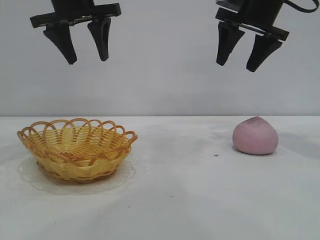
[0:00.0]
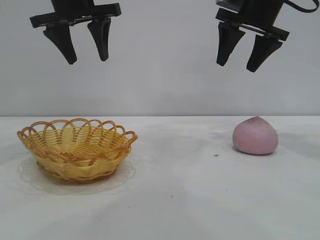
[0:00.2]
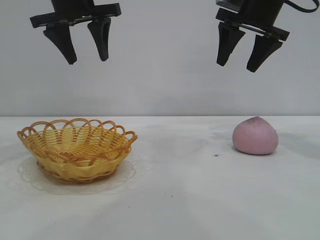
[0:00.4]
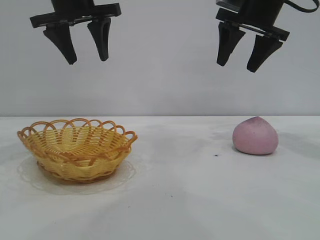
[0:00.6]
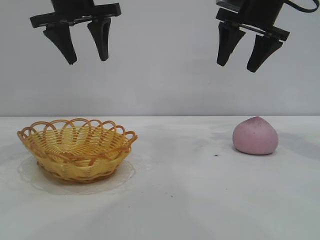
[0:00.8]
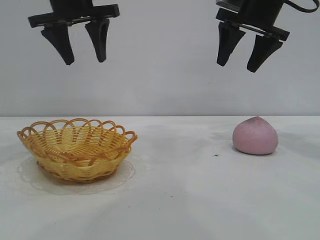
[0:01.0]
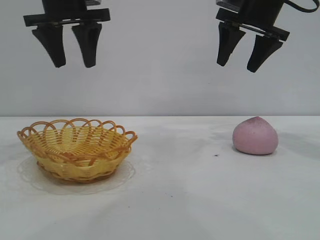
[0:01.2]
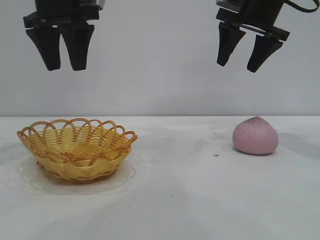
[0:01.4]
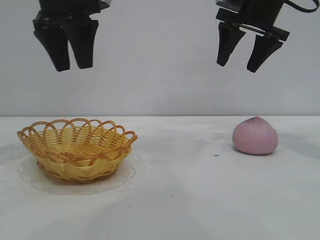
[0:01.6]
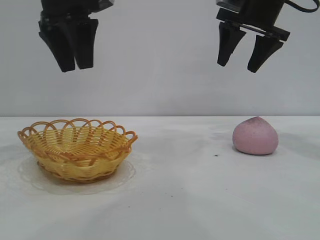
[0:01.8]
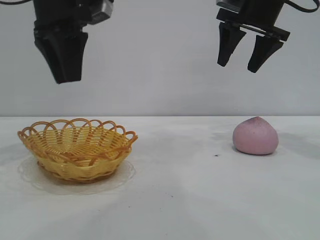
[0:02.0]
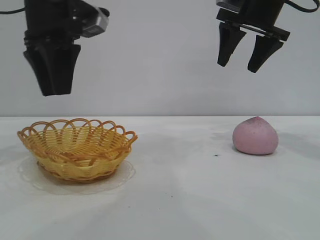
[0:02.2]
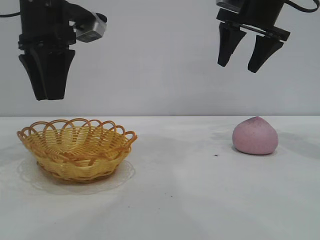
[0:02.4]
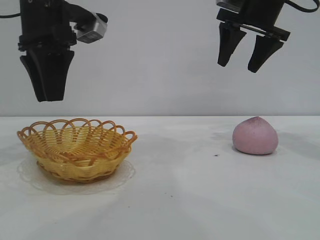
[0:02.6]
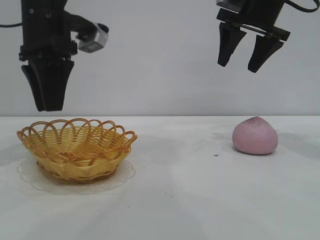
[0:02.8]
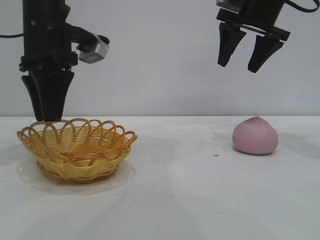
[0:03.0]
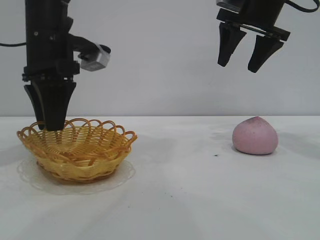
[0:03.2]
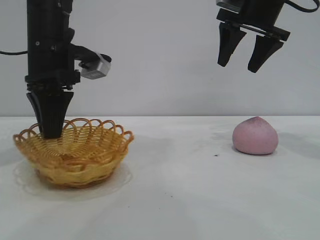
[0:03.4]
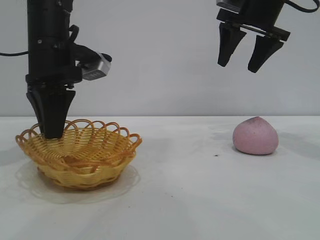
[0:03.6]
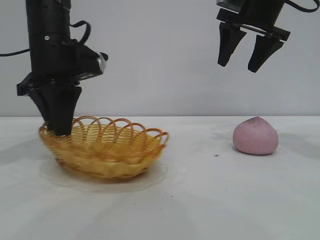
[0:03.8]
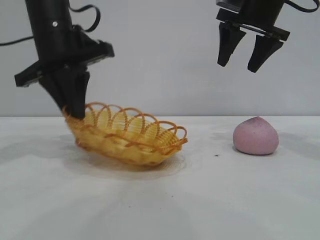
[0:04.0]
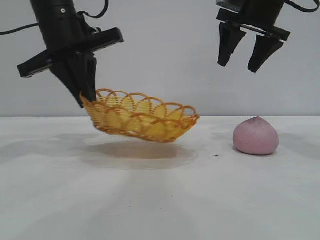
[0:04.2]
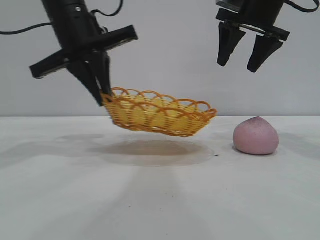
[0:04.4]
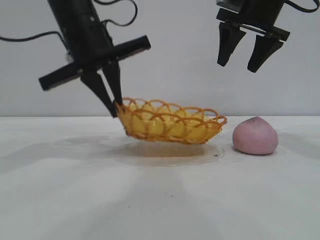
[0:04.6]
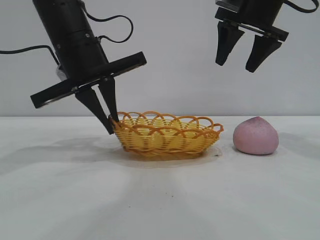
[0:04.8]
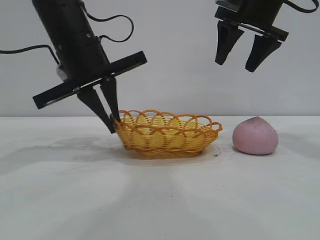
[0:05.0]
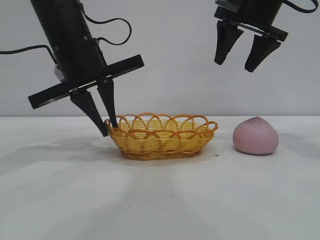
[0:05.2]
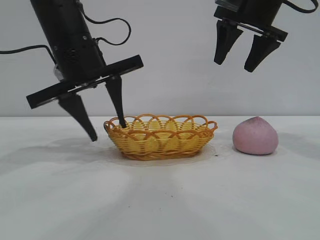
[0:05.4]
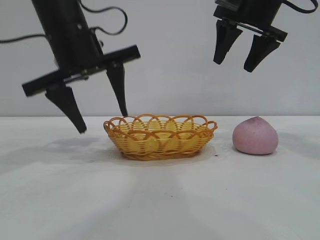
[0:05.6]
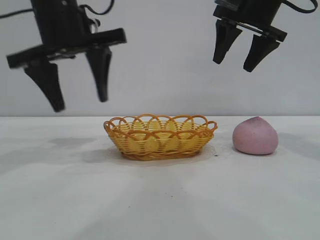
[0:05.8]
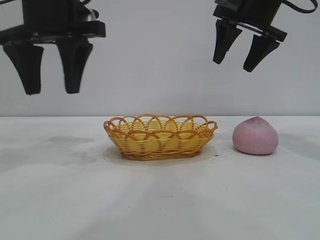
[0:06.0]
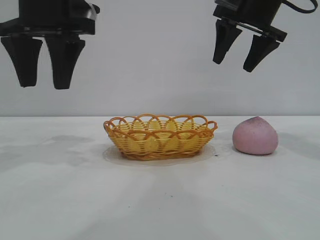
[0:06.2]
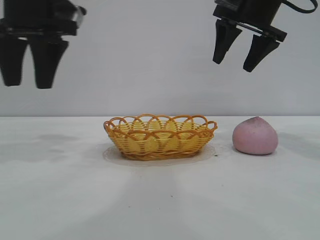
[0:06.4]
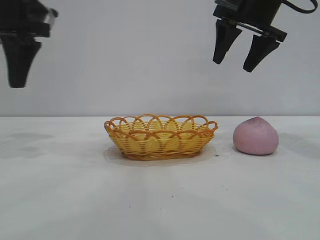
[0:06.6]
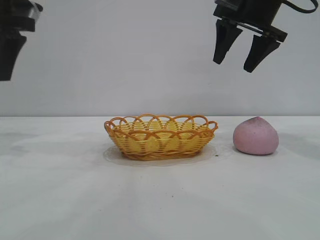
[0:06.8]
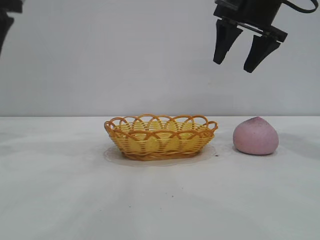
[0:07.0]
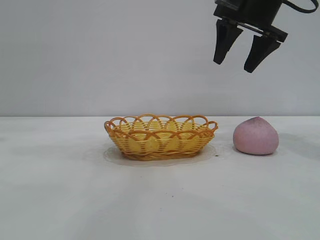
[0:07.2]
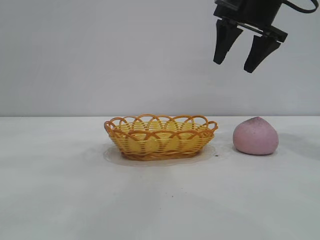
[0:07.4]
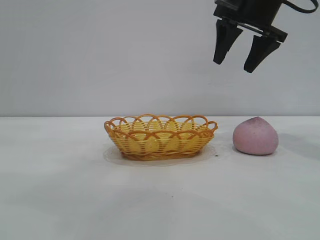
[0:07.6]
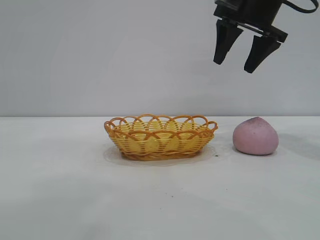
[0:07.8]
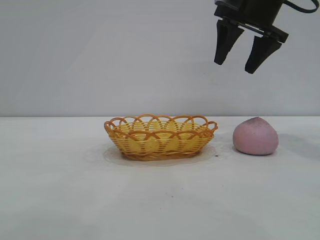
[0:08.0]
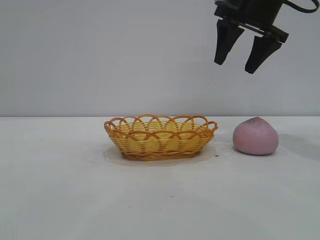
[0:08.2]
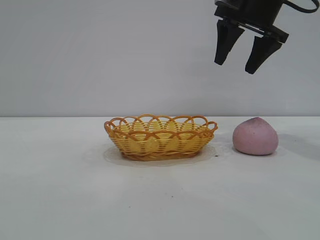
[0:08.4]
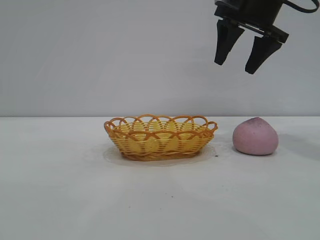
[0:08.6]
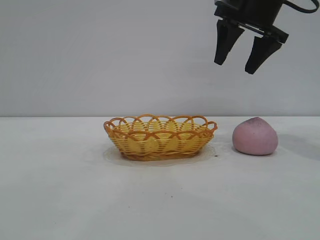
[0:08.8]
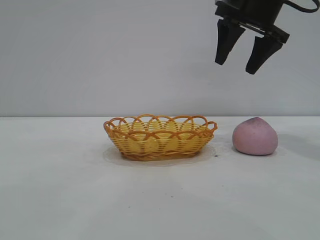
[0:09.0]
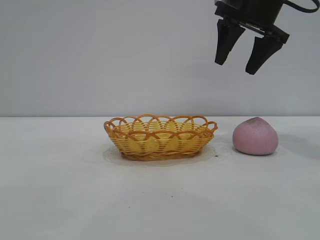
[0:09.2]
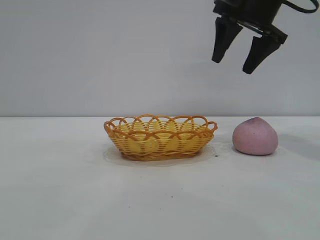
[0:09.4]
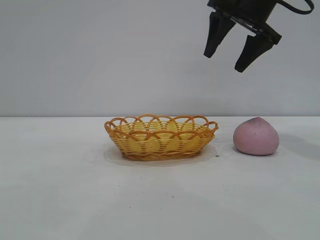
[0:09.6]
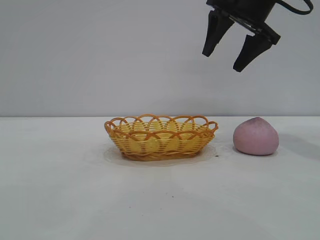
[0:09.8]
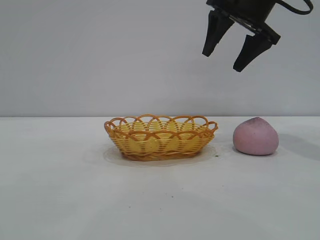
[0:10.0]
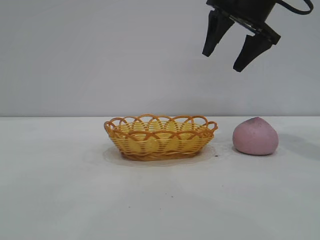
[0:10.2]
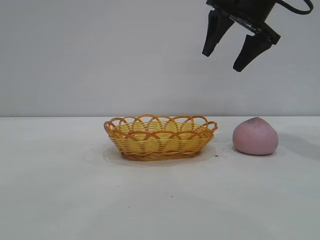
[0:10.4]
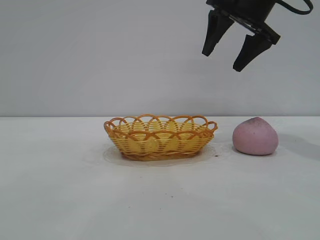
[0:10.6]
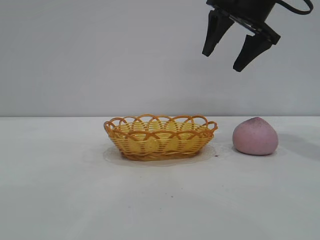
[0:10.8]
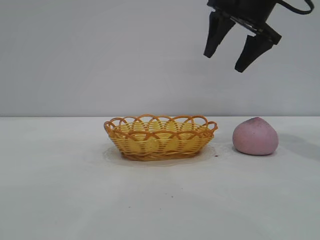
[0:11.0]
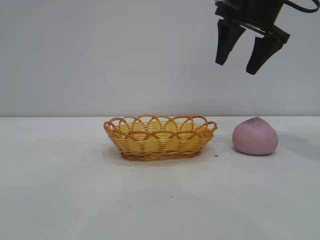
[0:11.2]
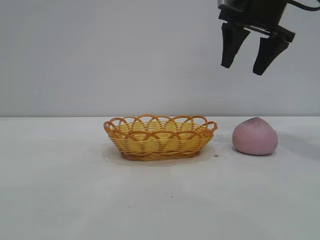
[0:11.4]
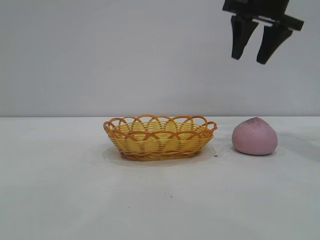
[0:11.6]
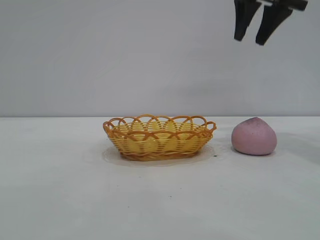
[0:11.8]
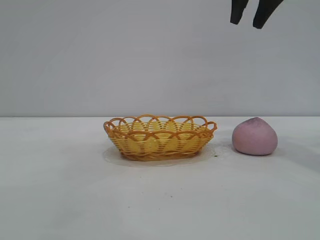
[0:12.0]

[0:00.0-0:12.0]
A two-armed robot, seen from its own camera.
Task of the whole recording: pick up the peach and put it into the basket.
Step, 0:00.0 to 0:05.8: Move the basket to the center of view.

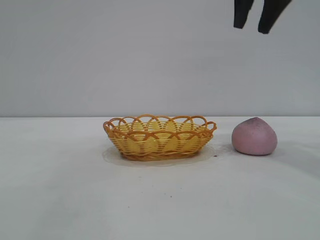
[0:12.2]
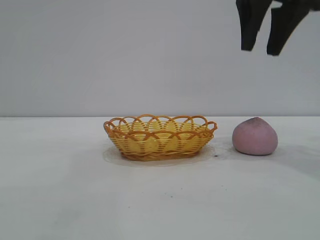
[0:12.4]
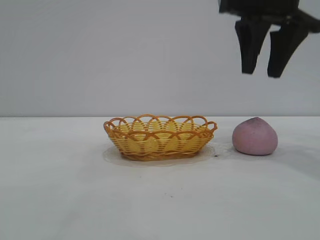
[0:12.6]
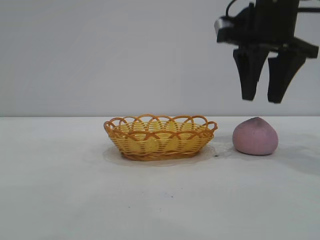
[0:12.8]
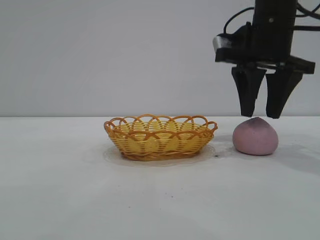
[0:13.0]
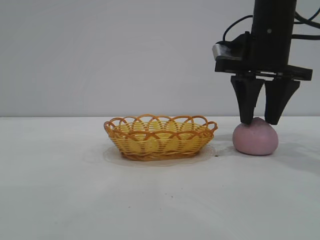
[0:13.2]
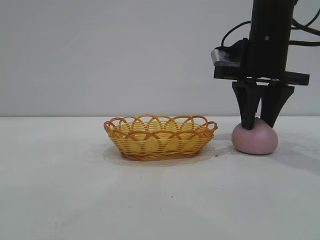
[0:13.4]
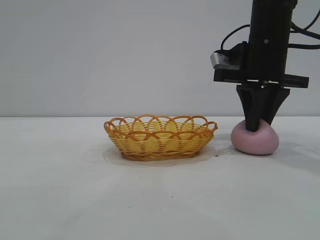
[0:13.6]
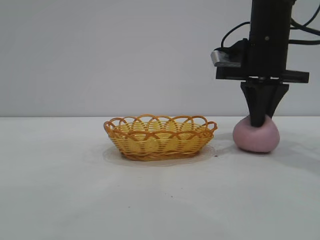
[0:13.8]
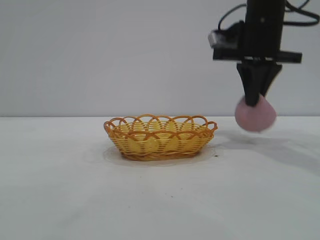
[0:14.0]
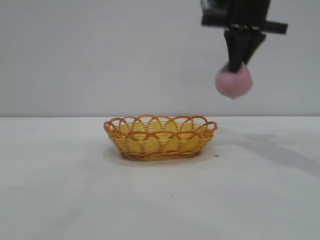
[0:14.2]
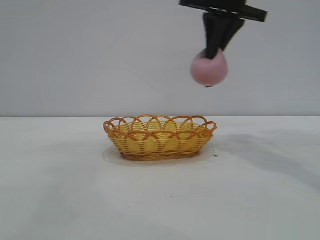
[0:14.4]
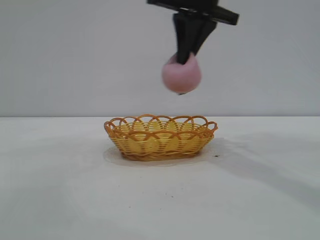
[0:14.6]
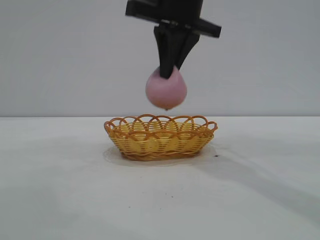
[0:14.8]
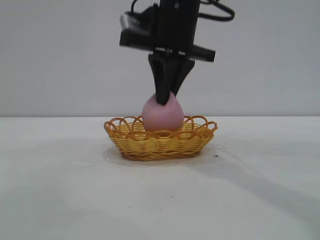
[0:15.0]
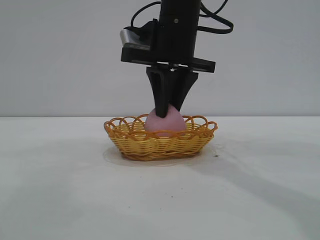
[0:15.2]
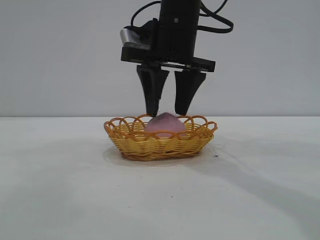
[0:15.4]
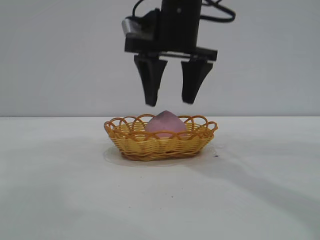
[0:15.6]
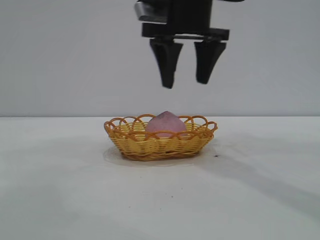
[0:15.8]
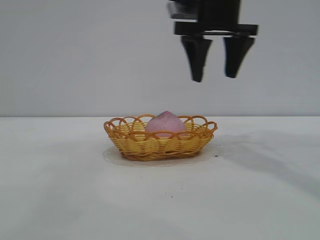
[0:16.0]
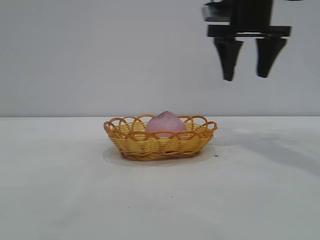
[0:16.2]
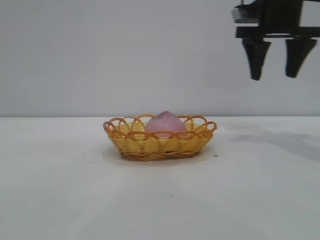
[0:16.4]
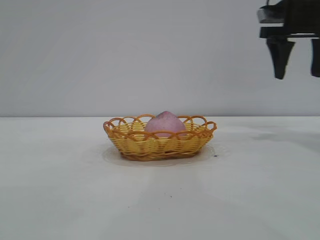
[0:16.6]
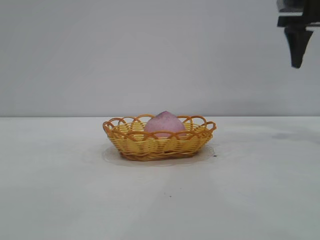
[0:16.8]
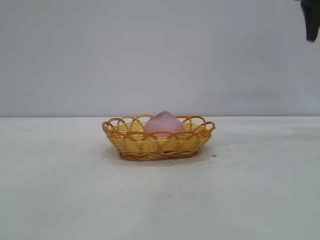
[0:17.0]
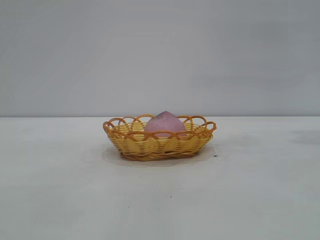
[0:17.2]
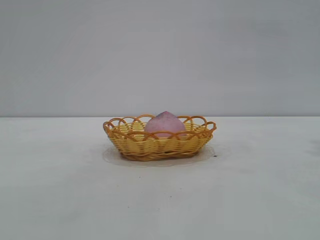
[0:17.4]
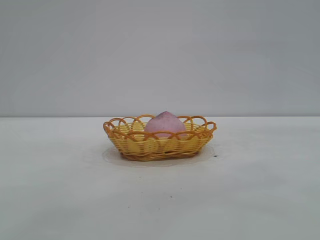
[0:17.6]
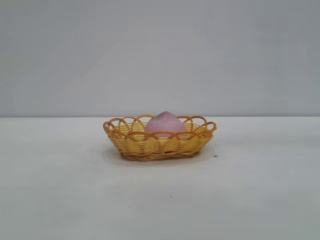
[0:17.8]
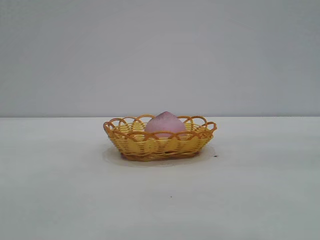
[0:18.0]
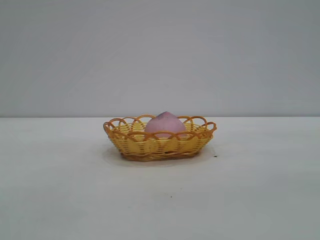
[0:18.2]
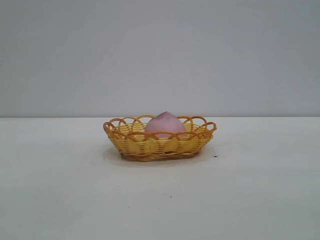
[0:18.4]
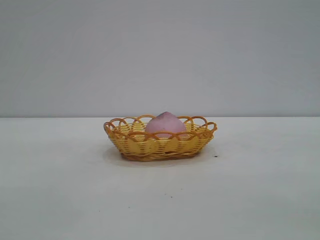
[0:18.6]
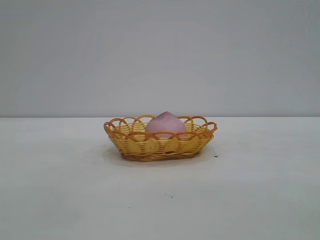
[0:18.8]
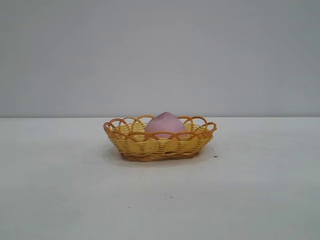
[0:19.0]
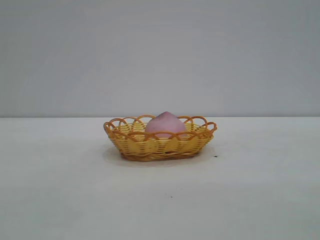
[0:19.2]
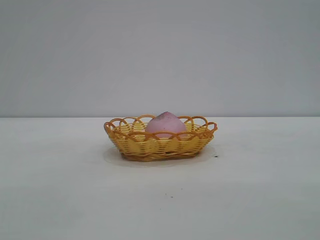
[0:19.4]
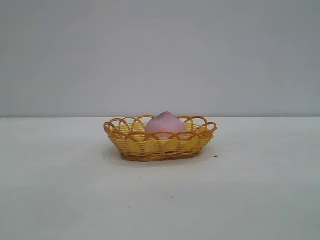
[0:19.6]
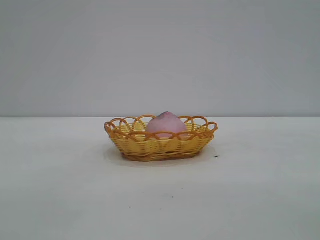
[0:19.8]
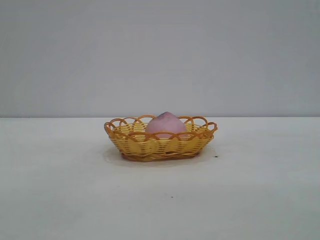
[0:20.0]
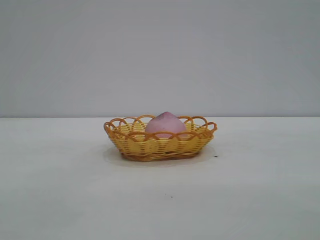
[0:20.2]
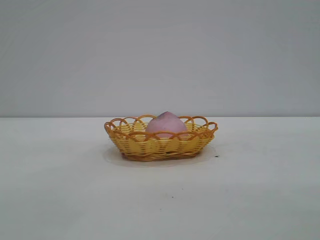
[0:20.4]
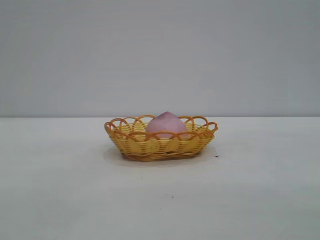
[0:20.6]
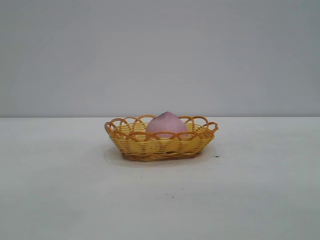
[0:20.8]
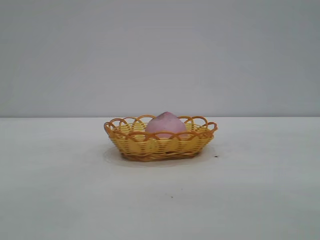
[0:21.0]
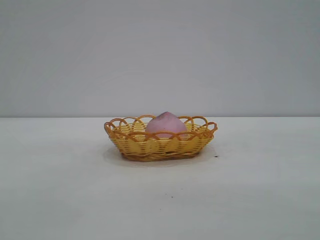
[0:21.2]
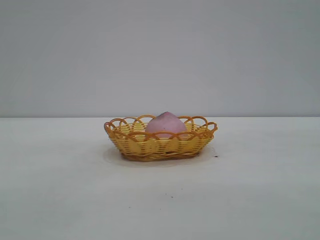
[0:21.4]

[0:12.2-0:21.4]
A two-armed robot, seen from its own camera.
Task of the whole recording: pick up the peach and put it into the basket.
Step, 0:14.2 to 0:15.6: place the peach into the basket.

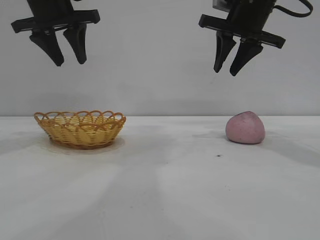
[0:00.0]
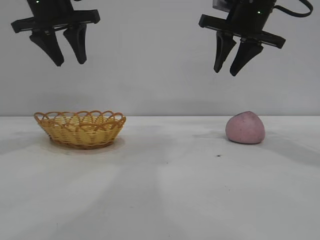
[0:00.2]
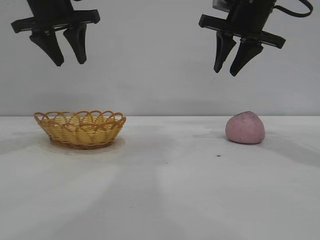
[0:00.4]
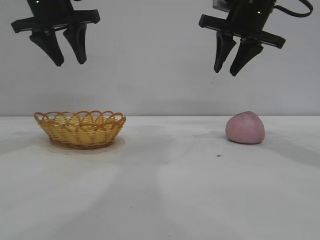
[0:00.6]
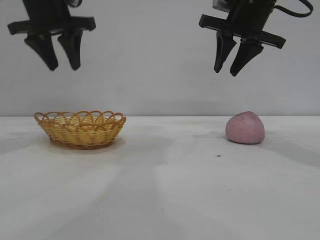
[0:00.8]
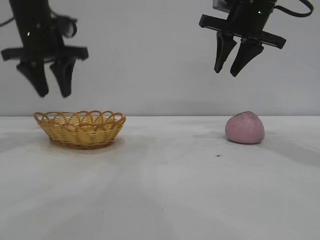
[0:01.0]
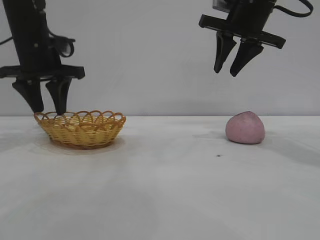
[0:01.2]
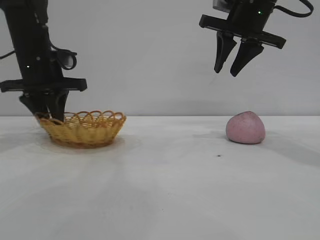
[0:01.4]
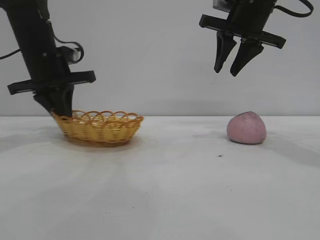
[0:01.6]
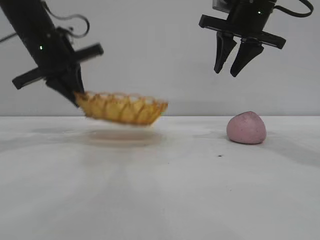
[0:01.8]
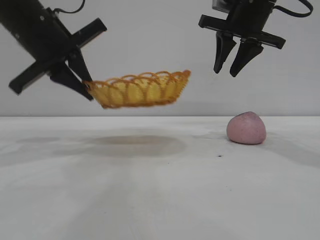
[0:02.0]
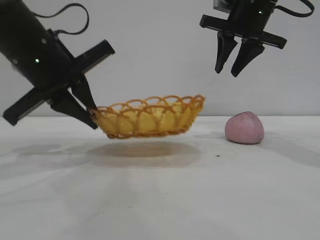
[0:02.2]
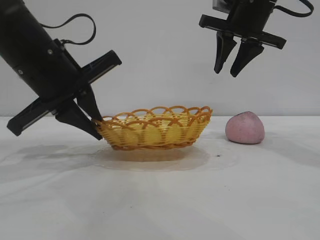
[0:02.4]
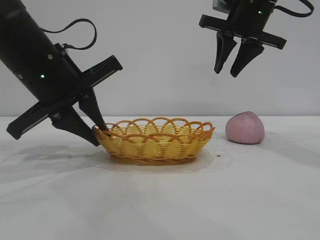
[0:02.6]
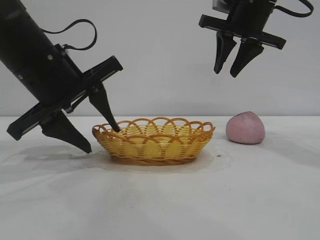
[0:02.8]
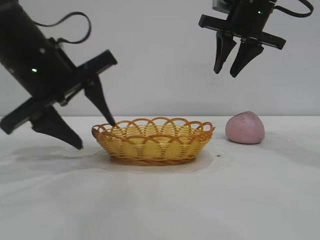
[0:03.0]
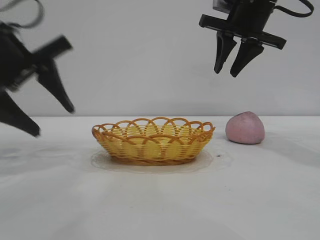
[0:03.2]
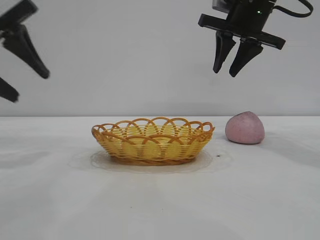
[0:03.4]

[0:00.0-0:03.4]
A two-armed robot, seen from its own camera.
Task of the whole recording: pick up the peach and put it into the basket.
Step, 0:00.0 to 0:03.0: Move the basket to the center of view.
